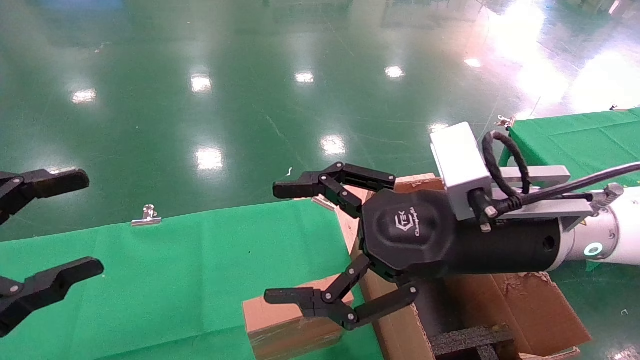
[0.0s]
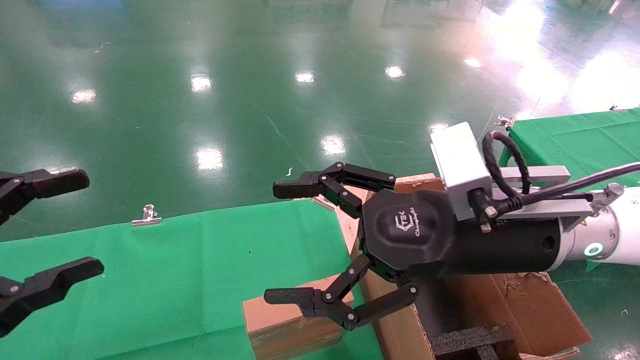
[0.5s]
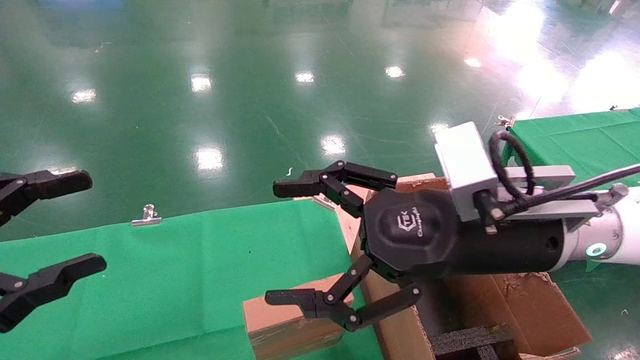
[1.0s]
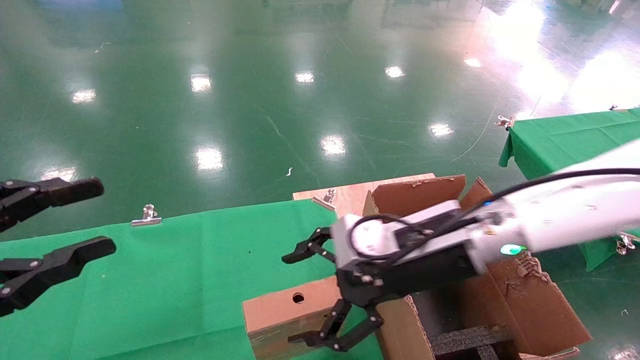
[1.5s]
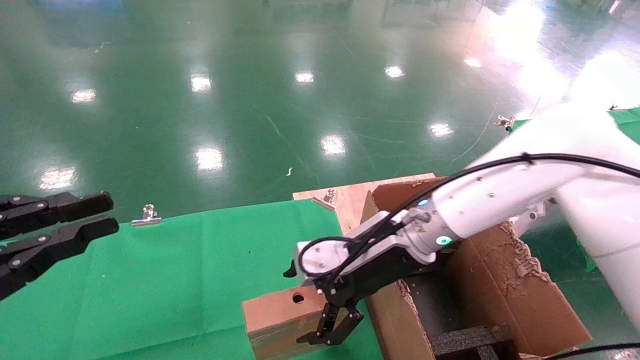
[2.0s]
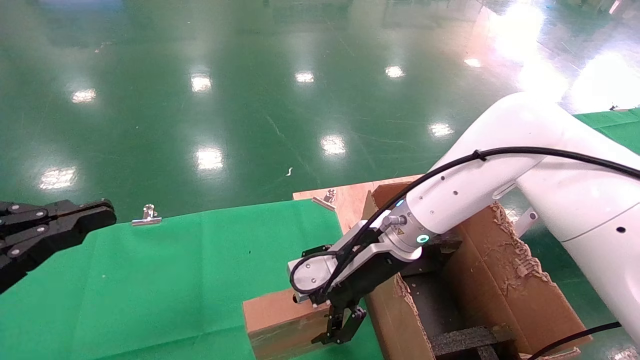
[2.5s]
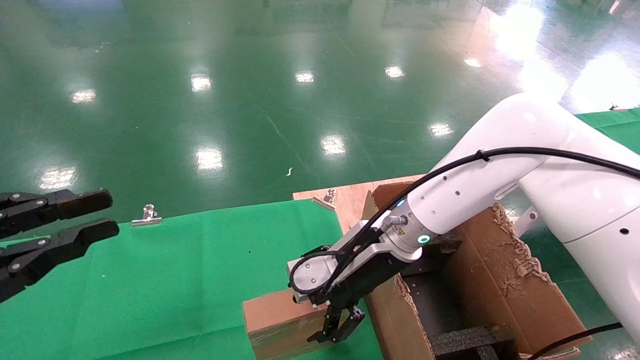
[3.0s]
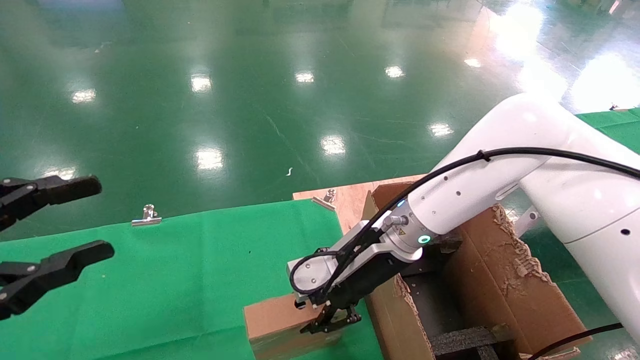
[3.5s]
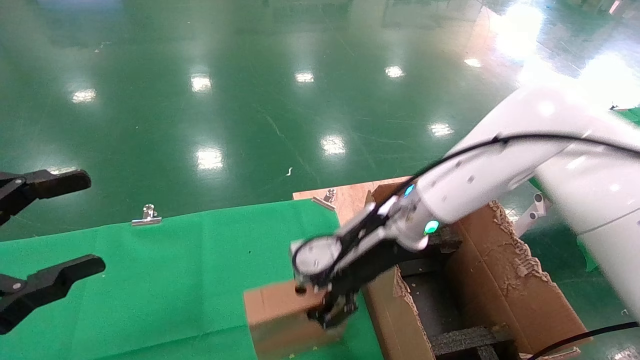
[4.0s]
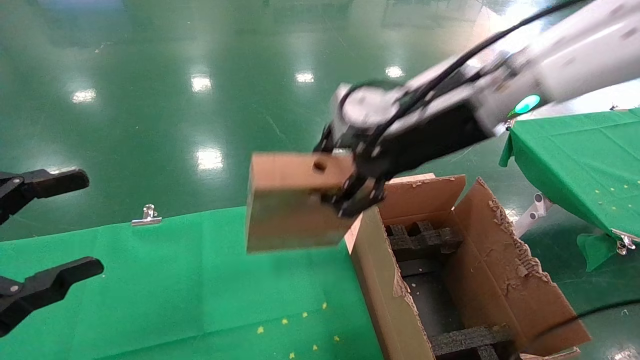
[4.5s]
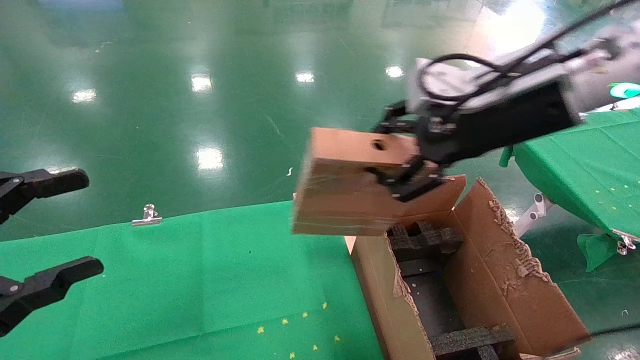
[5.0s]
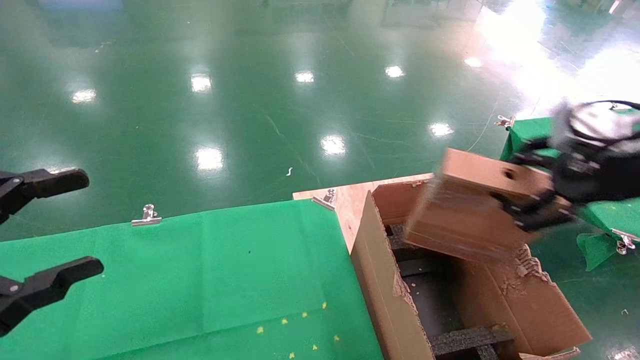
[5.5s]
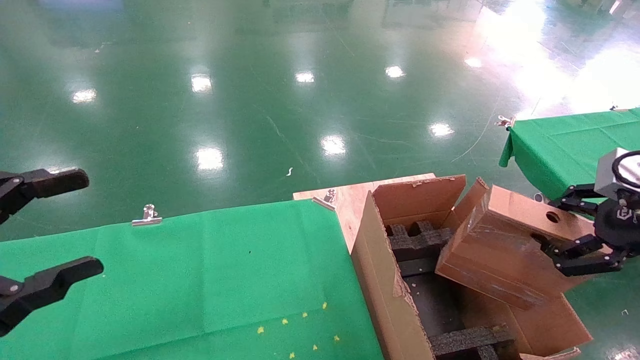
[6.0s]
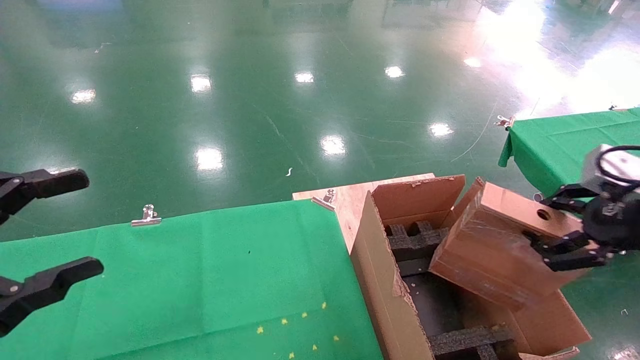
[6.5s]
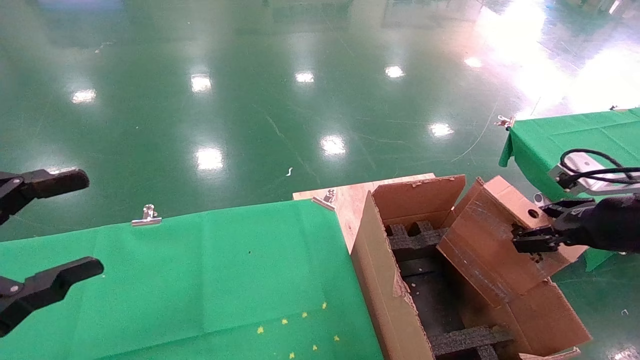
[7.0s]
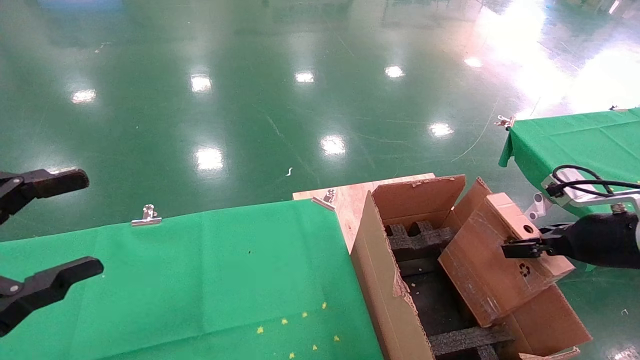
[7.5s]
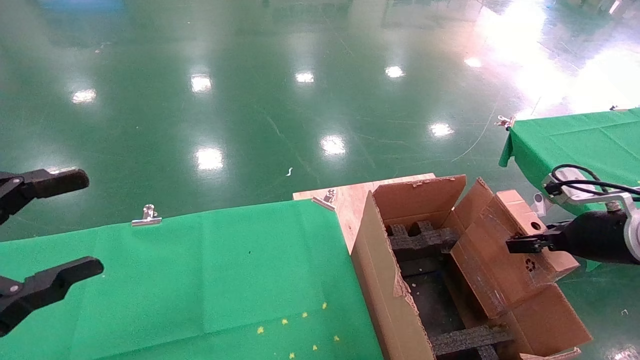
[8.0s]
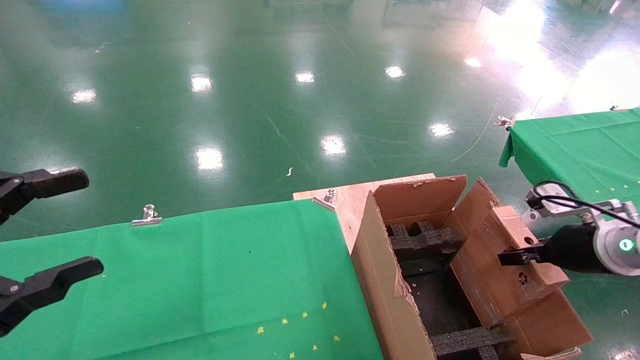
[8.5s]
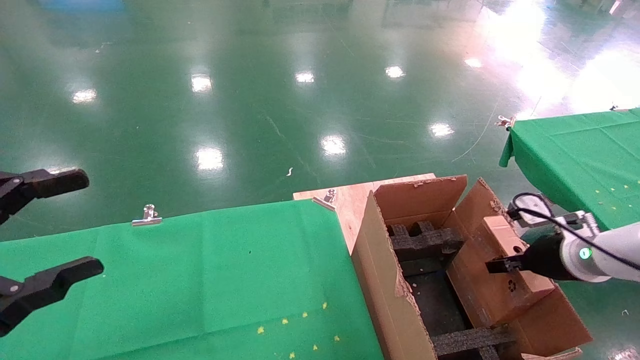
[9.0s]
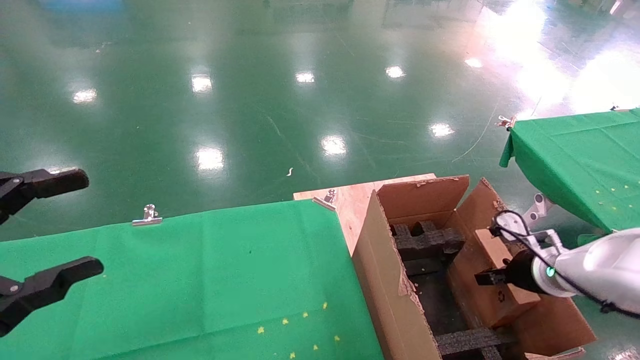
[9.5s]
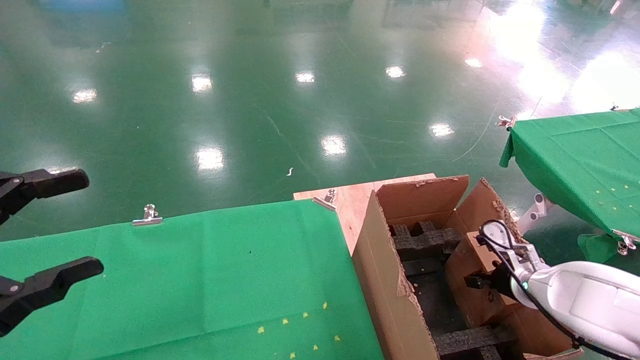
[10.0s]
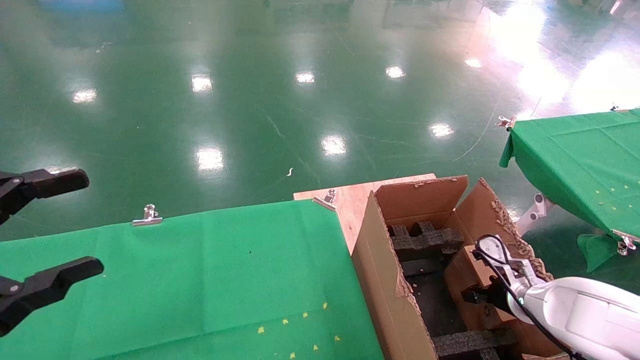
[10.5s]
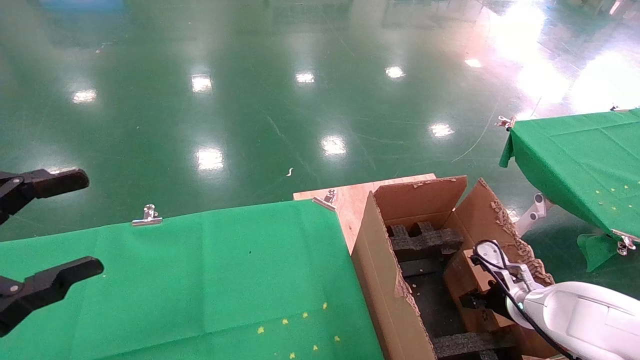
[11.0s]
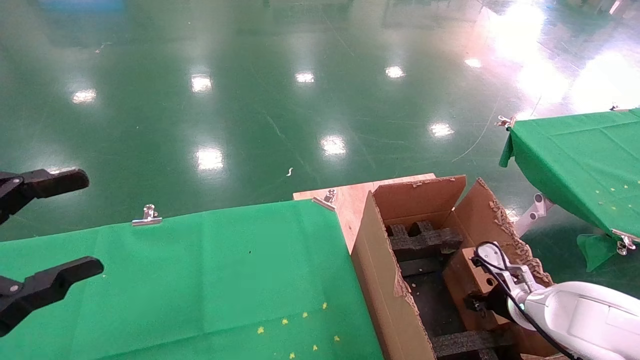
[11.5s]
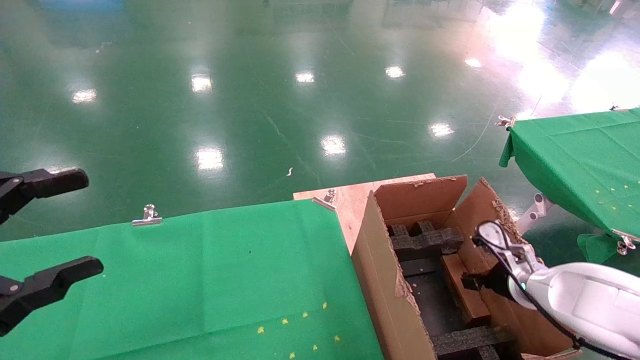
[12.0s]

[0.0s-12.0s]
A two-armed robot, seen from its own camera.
Task of the whole recording: using a robotic arm to pick up a cardboard box and palace it the carton.
Step, 1.5s to 3.5s: Pick up the mouse and the power cord paper box.
0.0s to 2.0s: The left gripper closes up; the right gripper is displaced forward, downward and to the left by approximately 15 cm.
2.0s to 4.0s: The left gripper opens its fingers; the right gripper closes its fingers.
4.0s to 6.0s: The right gripper travels to the right and backward by some 35 cm.
6.0s to 8.0s: The right gripper is displaced forward and downward by some 15 cm.
8.0s to 10.0s: The right gripper travels downward, forward and to the left by about 15 cm.
10.0s to 12.0s: The right gripper opens its fingers.

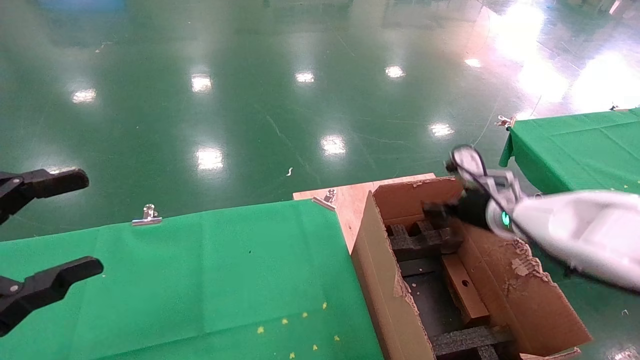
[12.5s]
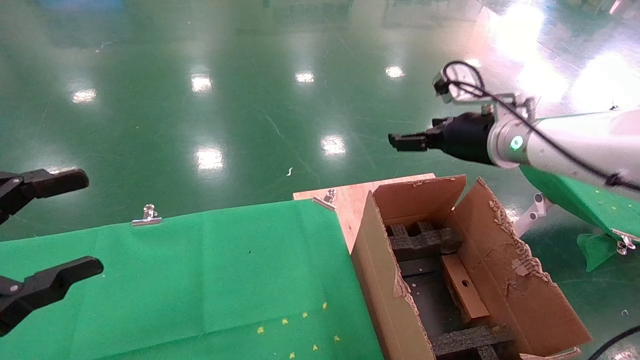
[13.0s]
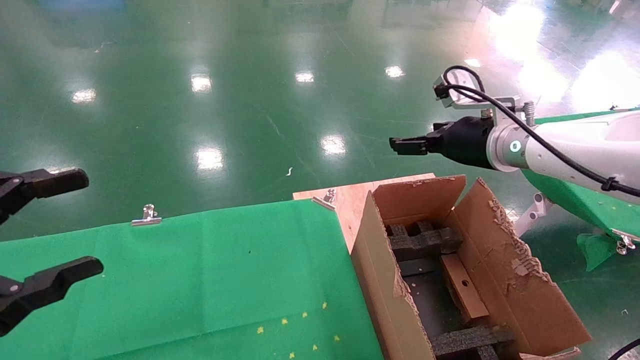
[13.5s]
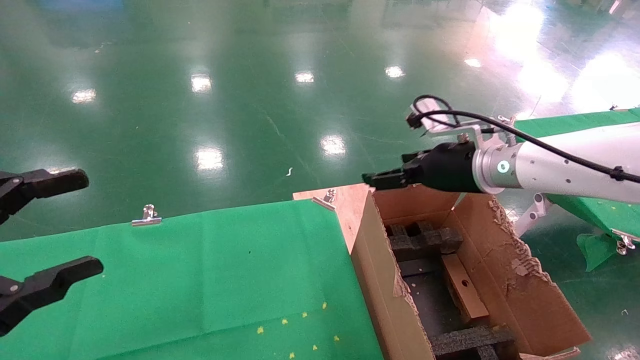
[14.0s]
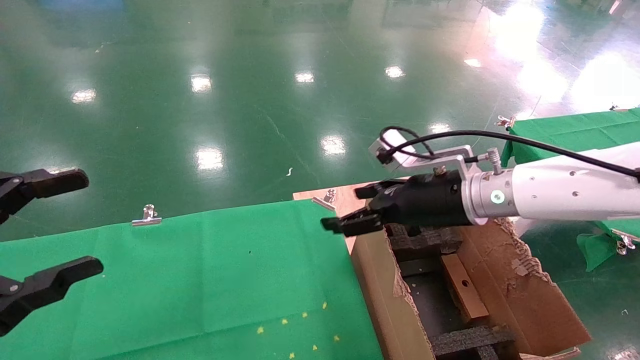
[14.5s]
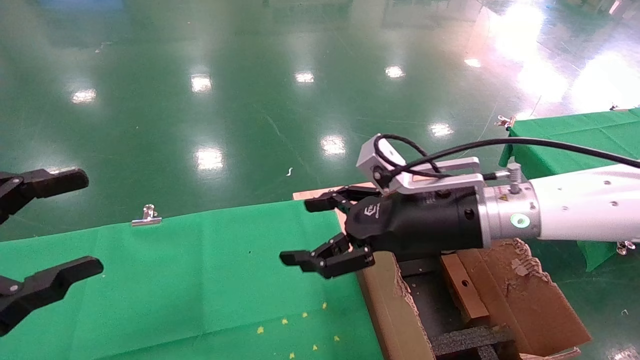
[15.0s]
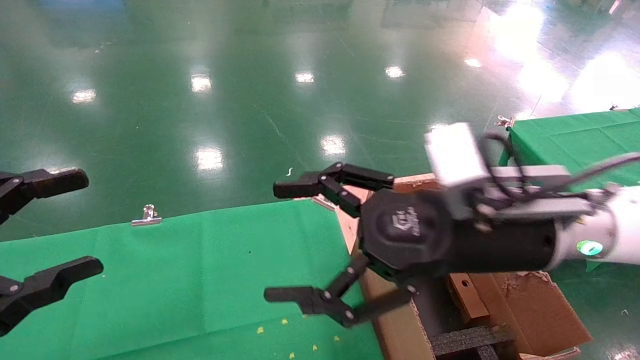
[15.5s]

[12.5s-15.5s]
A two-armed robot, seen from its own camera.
Task of the whole recording: using a robotic arm to pick up a cardboard box and palace it the carton.
12.5s to 14.0s: The right gripper moves upward and to the left, about 10 cm.
14.0s to 15.5s: The right gripper moves backward and to the left, about 15 cm.
